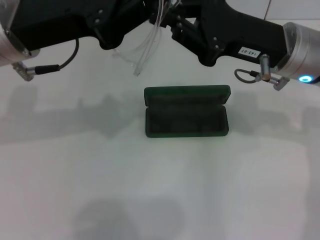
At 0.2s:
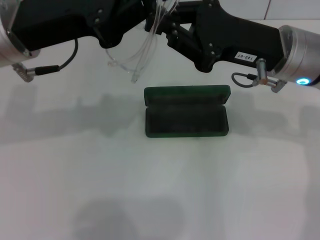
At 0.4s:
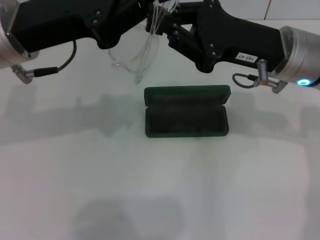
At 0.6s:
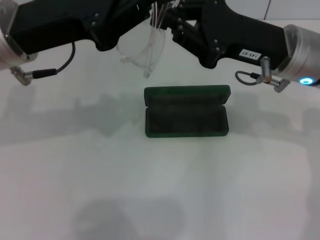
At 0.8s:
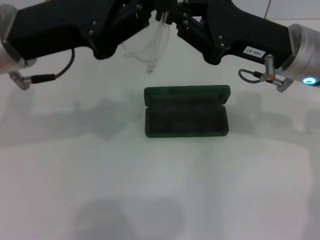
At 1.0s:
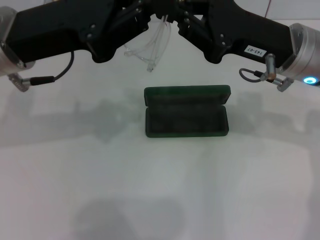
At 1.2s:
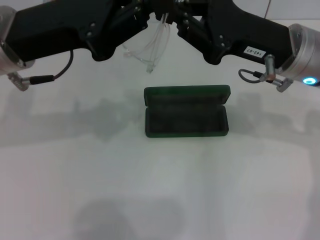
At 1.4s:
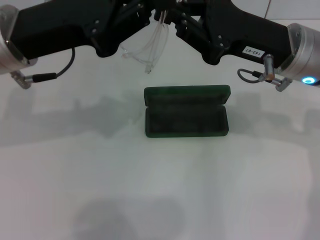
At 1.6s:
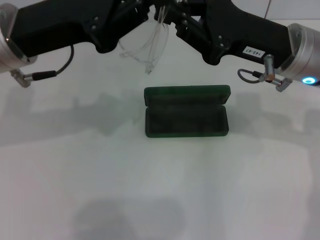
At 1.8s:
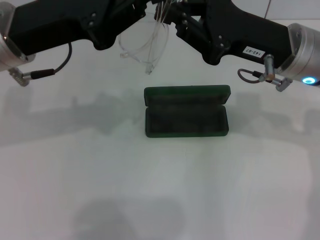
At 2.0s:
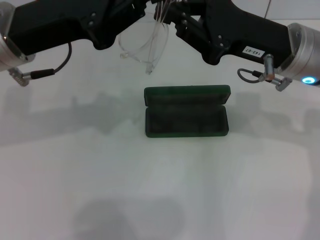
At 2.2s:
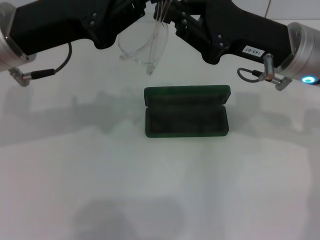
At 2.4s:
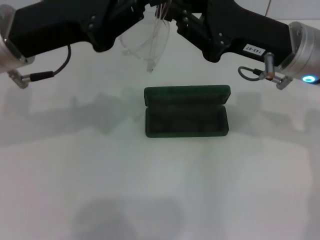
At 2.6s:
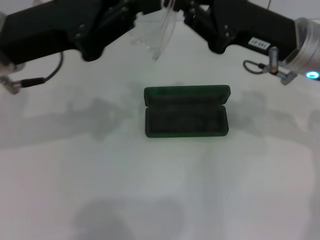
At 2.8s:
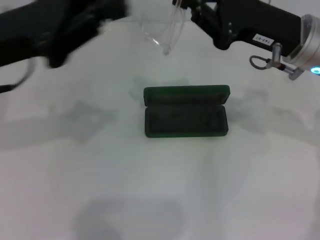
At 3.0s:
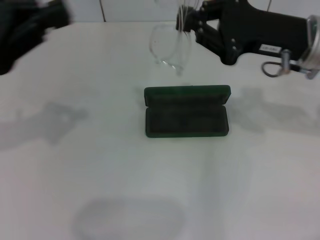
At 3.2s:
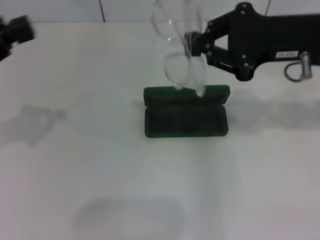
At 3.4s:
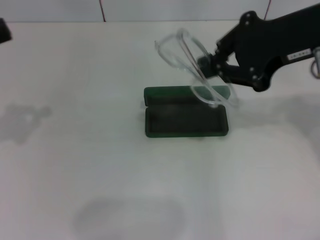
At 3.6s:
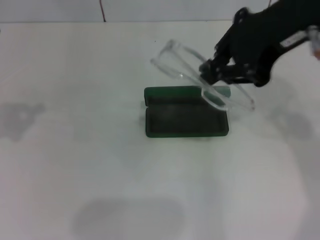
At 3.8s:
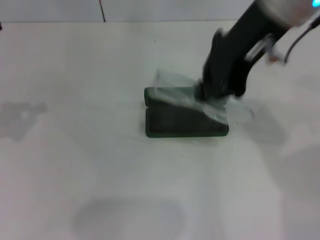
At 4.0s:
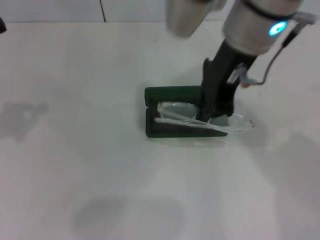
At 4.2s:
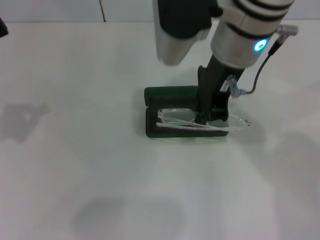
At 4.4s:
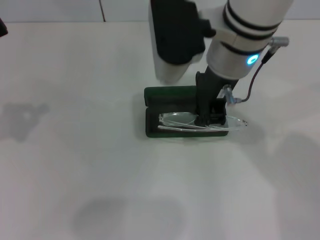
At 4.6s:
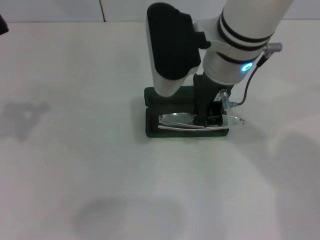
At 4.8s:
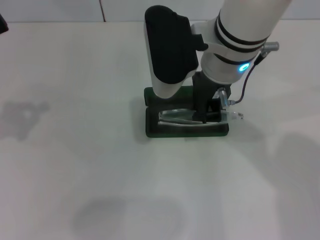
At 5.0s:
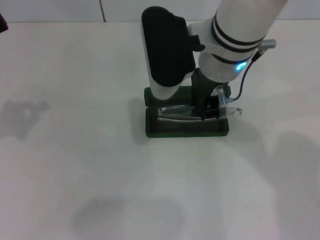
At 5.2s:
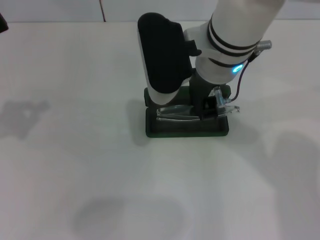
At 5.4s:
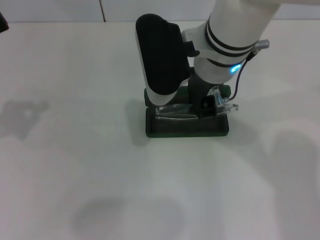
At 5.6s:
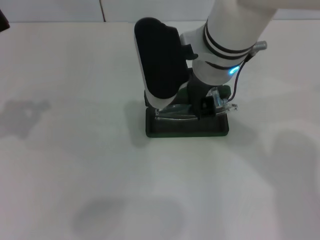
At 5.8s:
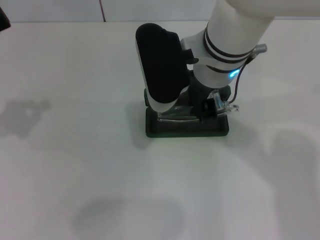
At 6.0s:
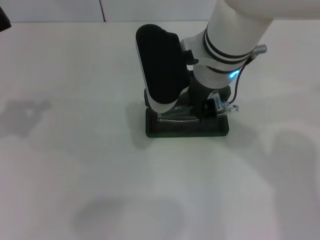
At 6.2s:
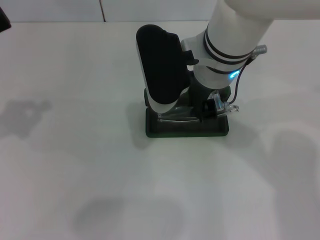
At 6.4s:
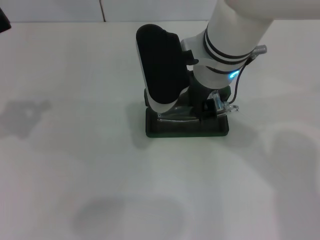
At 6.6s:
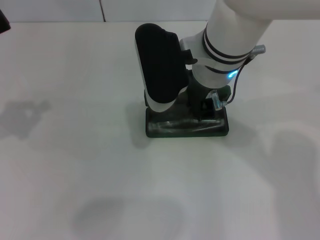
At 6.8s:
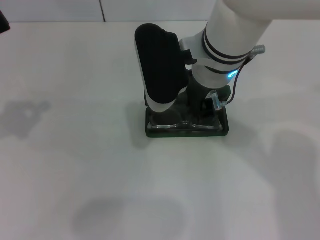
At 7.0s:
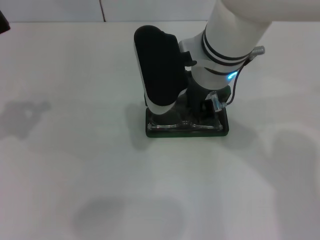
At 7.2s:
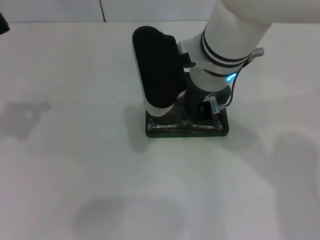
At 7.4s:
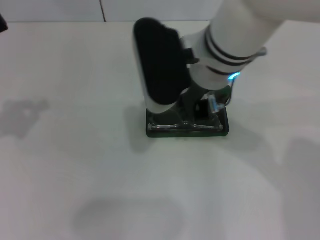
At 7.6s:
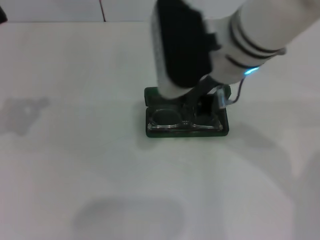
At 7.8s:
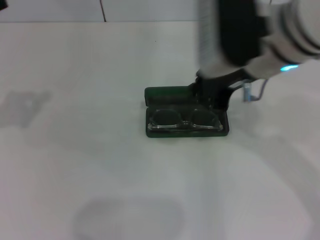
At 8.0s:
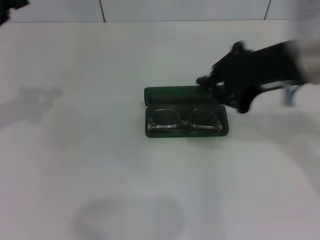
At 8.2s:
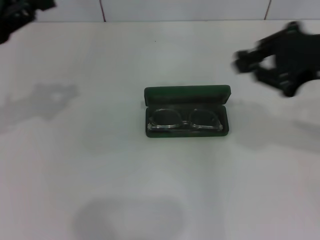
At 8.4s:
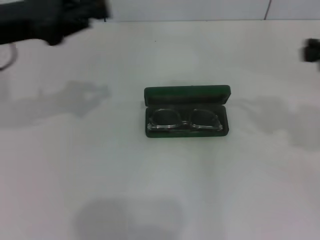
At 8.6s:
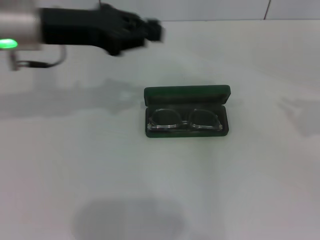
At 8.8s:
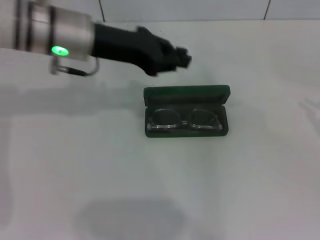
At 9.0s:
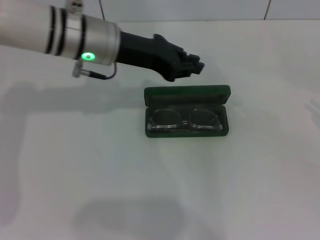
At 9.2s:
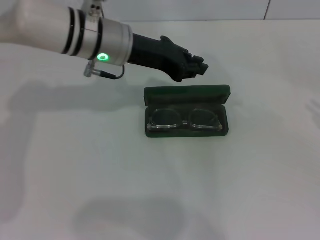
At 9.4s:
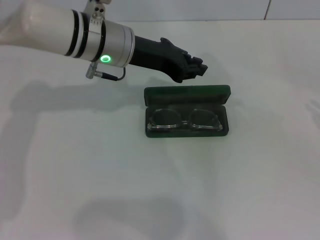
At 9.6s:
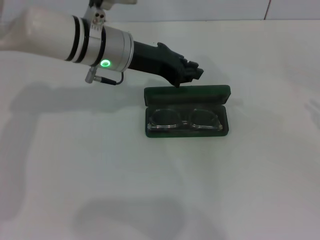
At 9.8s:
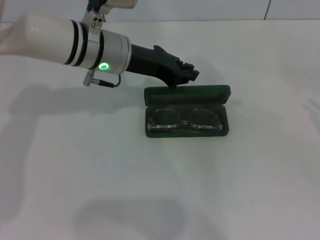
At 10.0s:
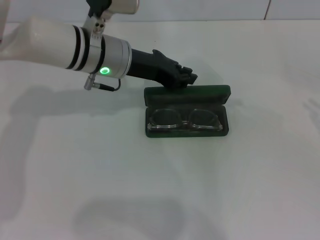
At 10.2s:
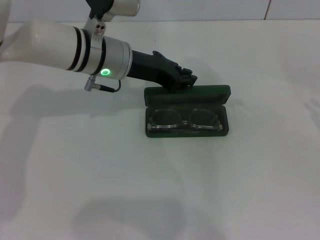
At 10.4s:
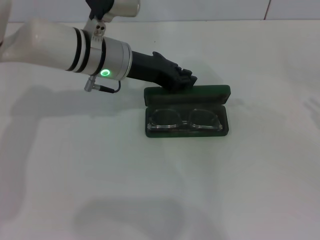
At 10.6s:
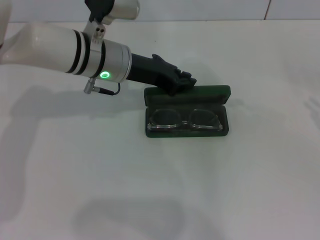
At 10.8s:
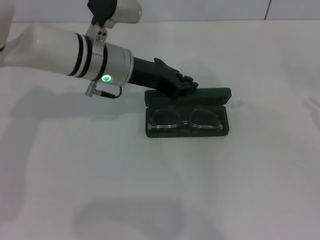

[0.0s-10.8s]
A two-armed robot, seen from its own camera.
Step, 0.0s to 2.2s: Lift the glasses with your right hand.
Step, 2.6s to 7.0s: Put the glasses into the case with your right hand.
0.0s to 1.6s: There are only small adjustments of the grippers.
1.6s to 3.0s: The left gripper heads to the left, covering roughly 10 cm.
3.0s to 4.6s: The left gripper is displaced to the left by some 5 cm. Meanwhile the right gripper heads to the left, covering about 15 cm.
4.6s to 6.2s: The grippers make only small movements.
6.2s to 7.8s: The right gripper is displaced to the right by some 5 cm.
7.8s to 9.2s: The left gripper shifts approximately 25 cm to the right and forward, while the right gripper shifts some 30 cm to the right.
9.2s to 10.8s: The grippers move only a little.

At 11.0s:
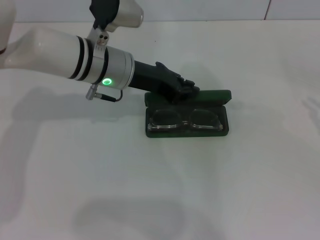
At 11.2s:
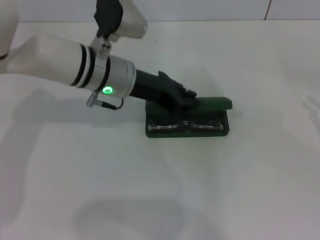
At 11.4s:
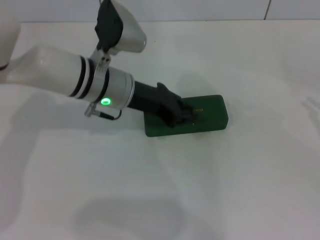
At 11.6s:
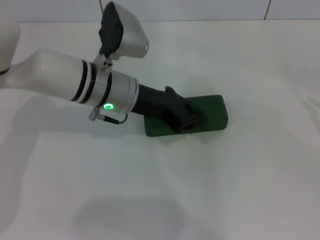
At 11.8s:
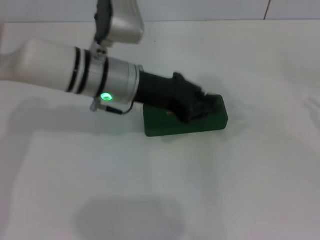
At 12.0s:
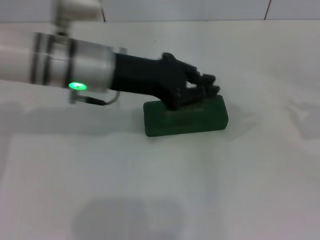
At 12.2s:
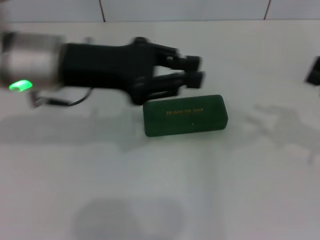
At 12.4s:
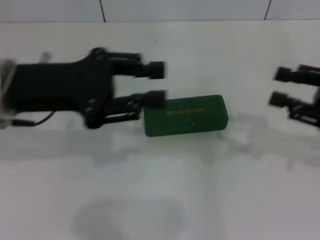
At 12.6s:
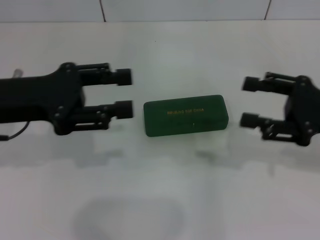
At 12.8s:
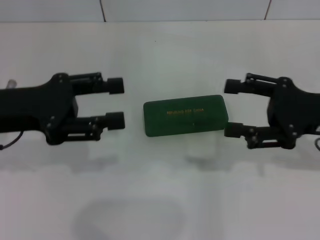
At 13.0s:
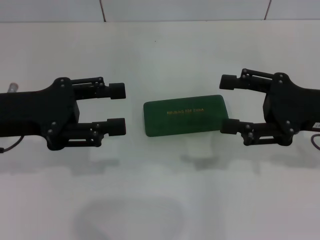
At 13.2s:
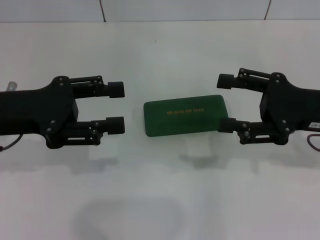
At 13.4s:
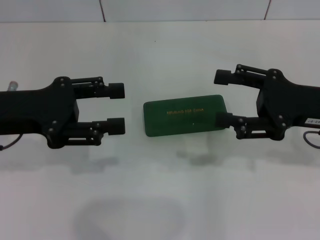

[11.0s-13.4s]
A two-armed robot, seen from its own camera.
11.0s to 12.2s: The right gripper travels to the left by some 5 cm. Meanwhile the left gripper shifts about 10 cm upward, backward and to the left.
12.2s to 13.4s: Both grippers move to the left, roughly 10 cm. The right gripper opens up. The left gripper opens its fingers.

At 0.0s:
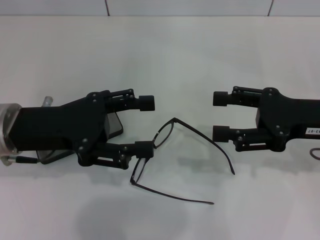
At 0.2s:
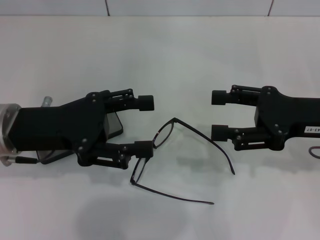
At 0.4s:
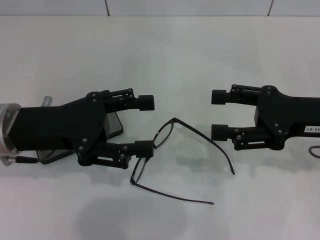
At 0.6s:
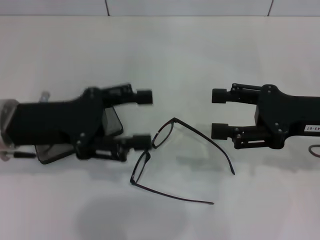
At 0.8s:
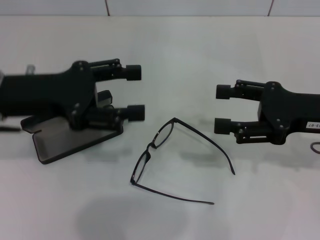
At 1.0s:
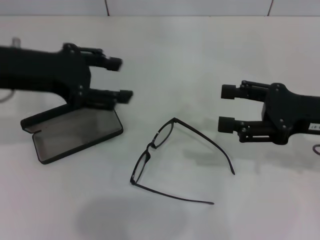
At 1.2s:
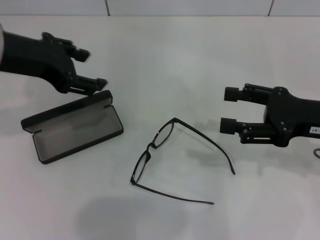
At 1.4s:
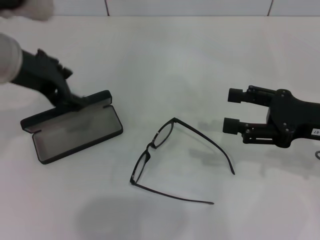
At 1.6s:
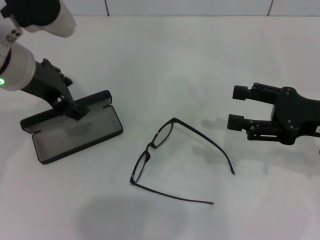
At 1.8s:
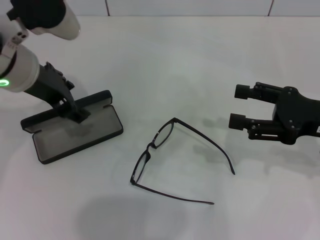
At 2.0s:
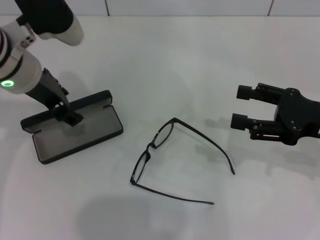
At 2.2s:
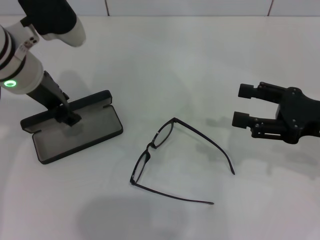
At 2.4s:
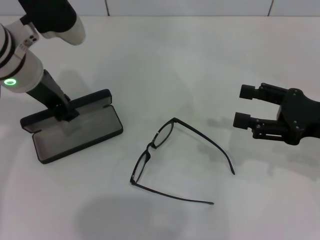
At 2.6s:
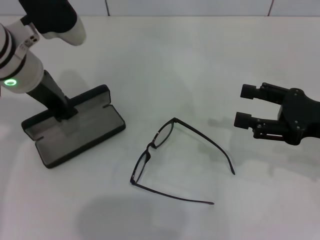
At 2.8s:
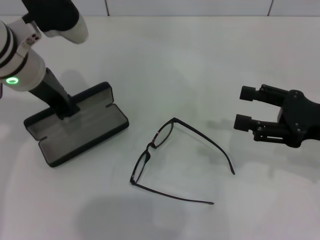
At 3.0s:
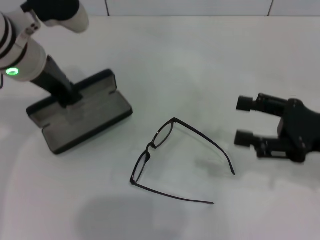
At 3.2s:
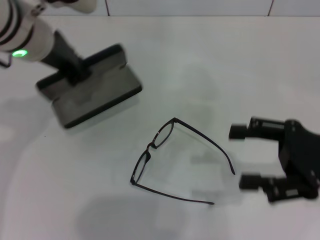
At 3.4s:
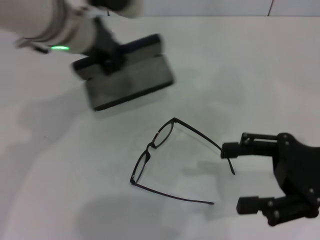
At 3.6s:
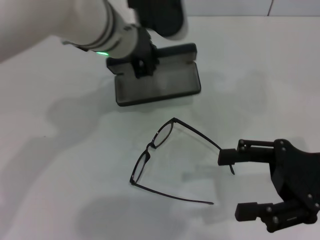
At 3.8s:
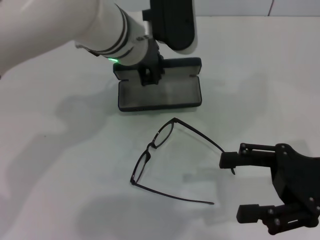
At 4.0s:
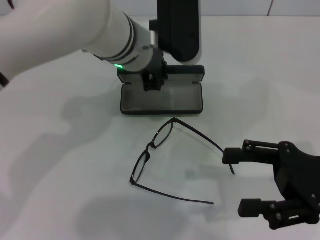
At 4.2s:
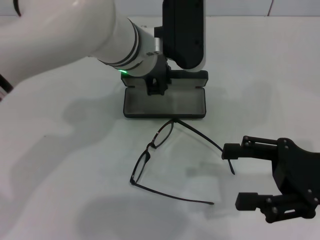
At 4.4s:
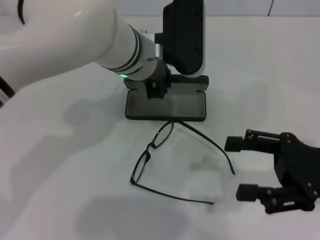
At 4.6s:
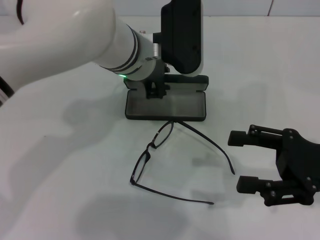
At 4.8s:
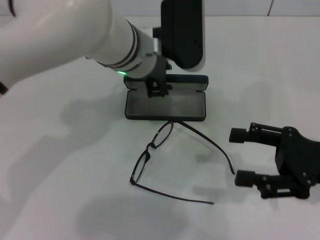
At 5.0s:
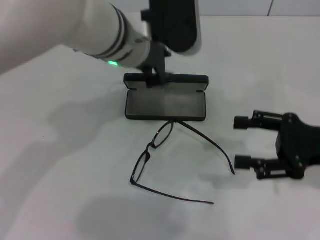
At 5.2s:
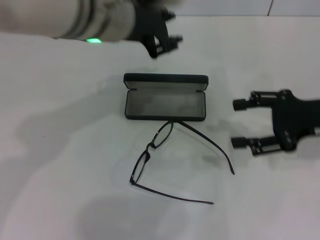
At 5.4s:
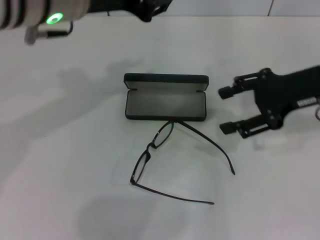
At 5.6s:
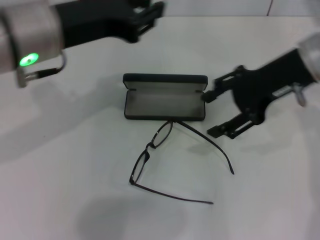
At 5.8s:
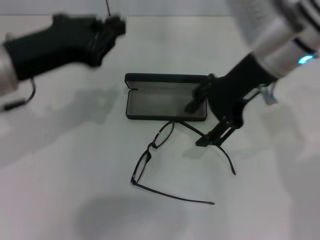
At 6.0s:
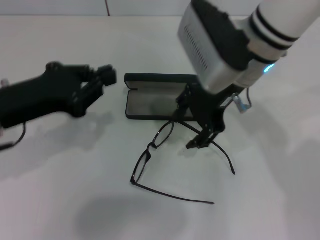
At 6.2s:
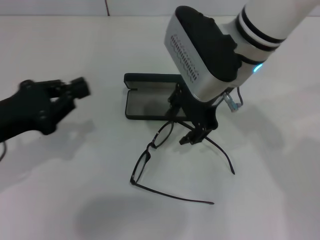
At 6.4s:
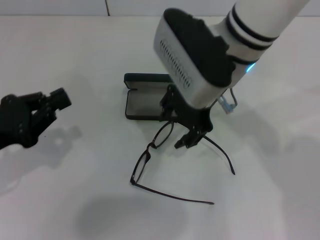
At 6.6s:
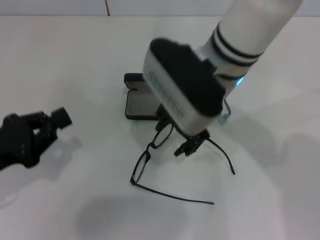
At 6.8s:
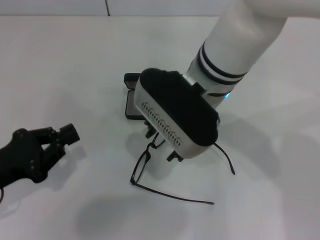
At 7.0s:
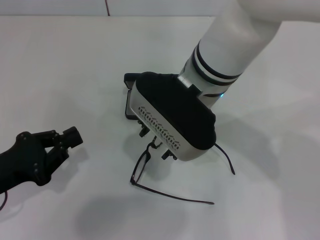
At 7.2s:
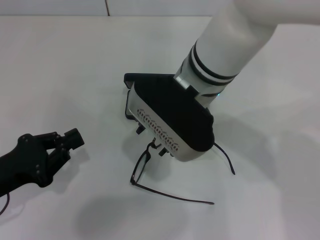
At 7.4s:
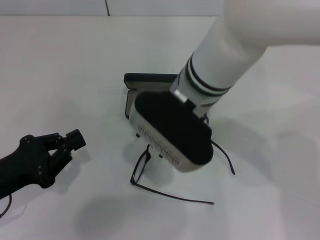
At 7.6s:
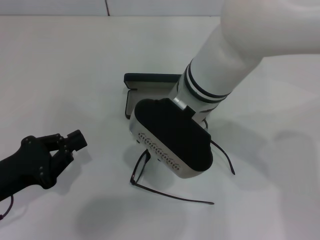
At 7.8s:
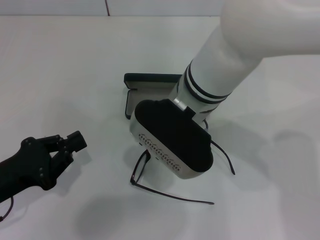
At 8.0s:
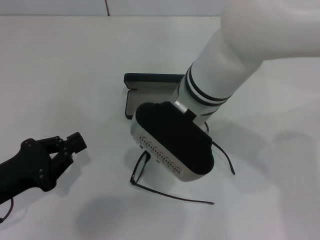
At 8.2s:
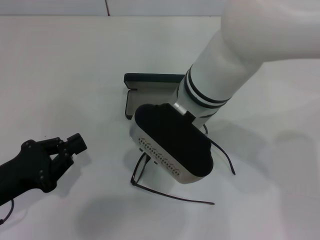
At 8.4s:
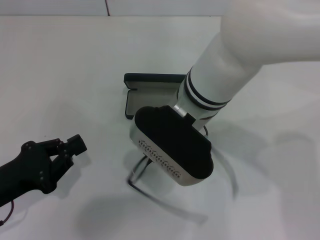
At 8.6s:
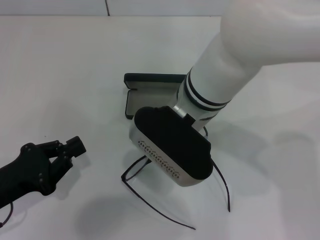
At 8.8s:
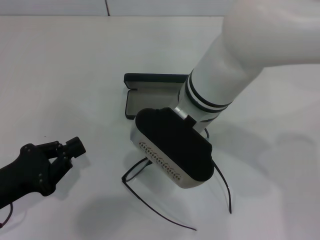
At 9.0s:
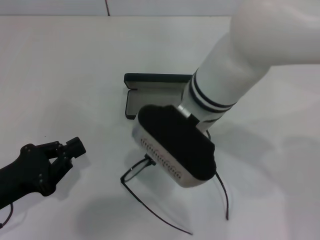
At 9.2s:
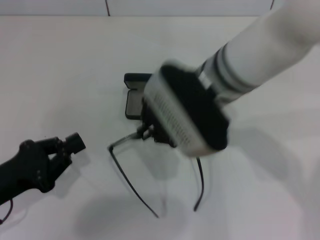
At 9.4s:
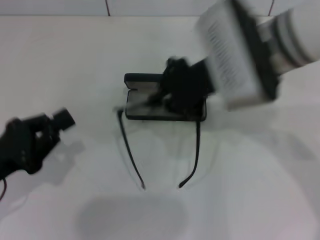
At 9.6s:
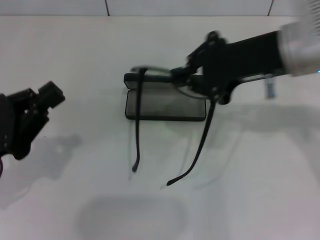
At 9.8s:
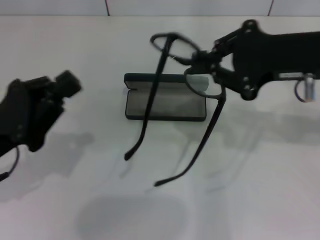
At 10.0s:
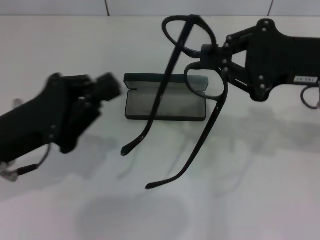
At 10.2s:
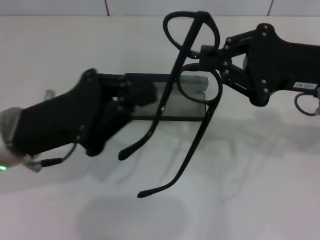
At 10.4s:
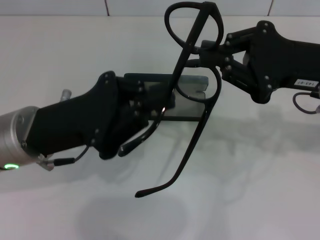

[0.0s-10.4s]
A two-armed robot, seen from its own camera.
Step, 0.0s to 2.4s: Grab the glasses case with your left hand.
Step, 2.8s to 5.0s: Place the glasses case in the center of the table with your left hand.
Step, 5.2s to 8.4s: Grab the eyeglass frame with your right hand.
0.0s to 1.4s: The left gripper is displaced upward and forward by roughly 10 cm.
1.4s to 3.0s: The left gripper closes up.
3.0s to 4.4s: The left gripper goes approximately 15 cm to the right.
4.4s to 6.0s: The right gripper is displaced to the left, forward and upward by some 25 cm. Meanwhile the left gripper moves to the left and backward, about 25 cm.
6.0s to 7.4s: The right gripper goes about 5 cm to the left. Meanwhile the left gripper heads downward and backward, covering roughly 10 cm.
7.4s to 9.0s: The right gripper closes its fingers.
9.0s to 10.4s: The right gripper travels to the right by about 20 cm. Meanwhile the left gripper shifts approximately 15 cm to the right, forward and upward.
